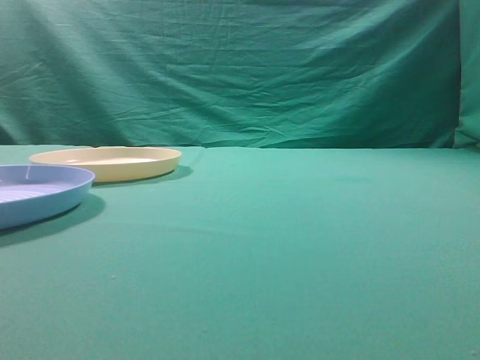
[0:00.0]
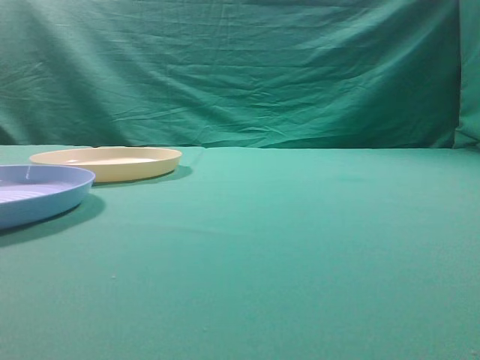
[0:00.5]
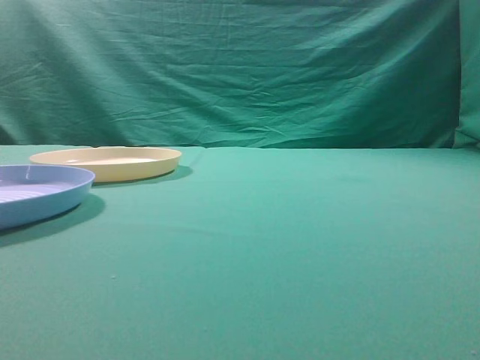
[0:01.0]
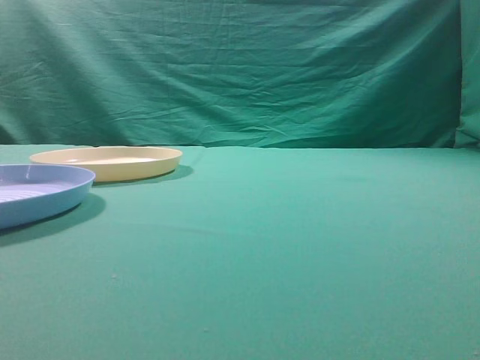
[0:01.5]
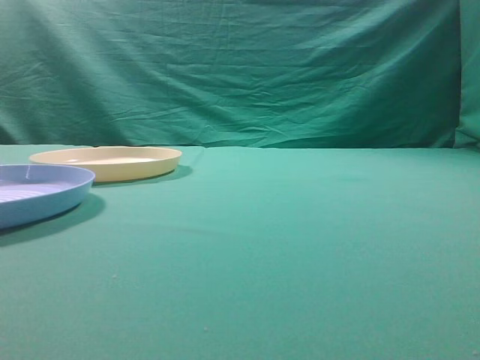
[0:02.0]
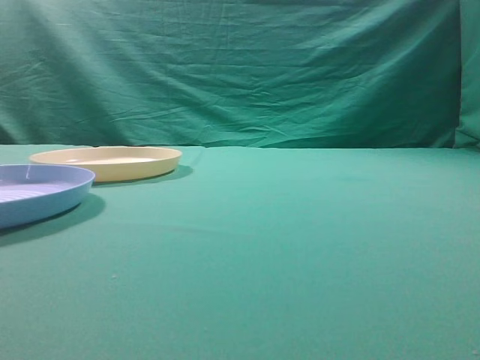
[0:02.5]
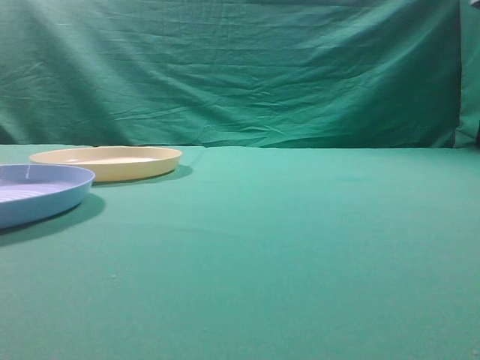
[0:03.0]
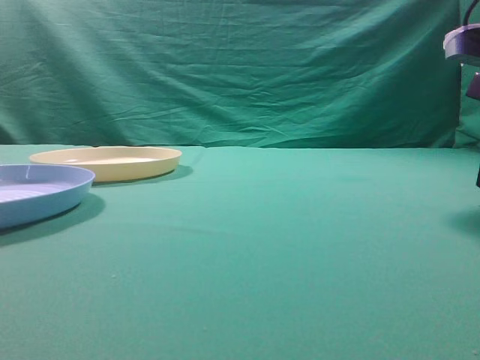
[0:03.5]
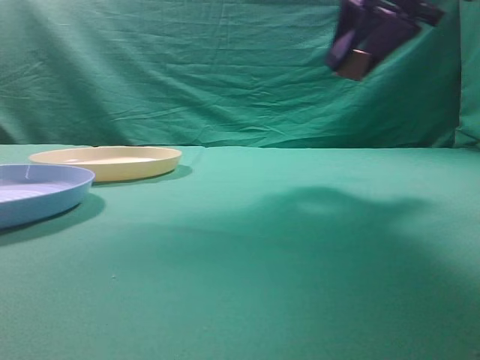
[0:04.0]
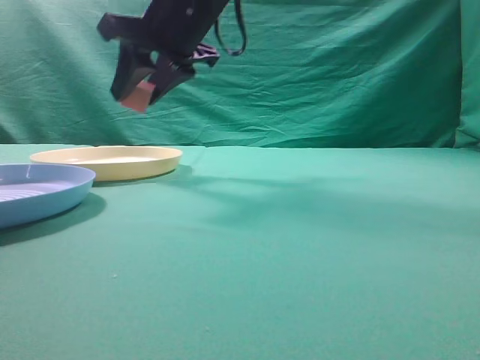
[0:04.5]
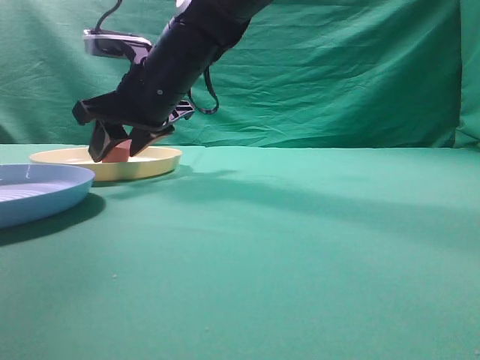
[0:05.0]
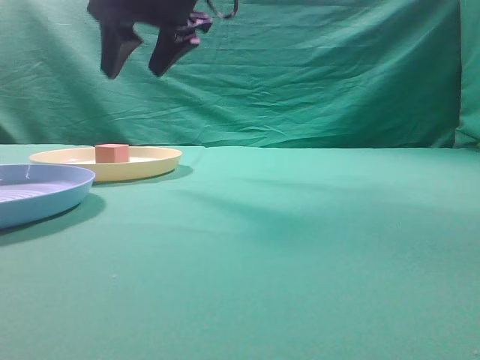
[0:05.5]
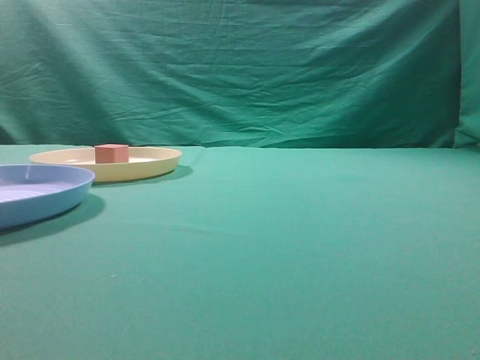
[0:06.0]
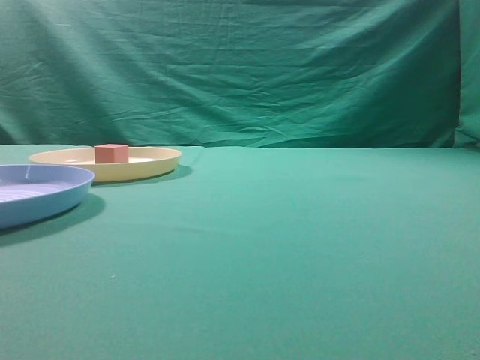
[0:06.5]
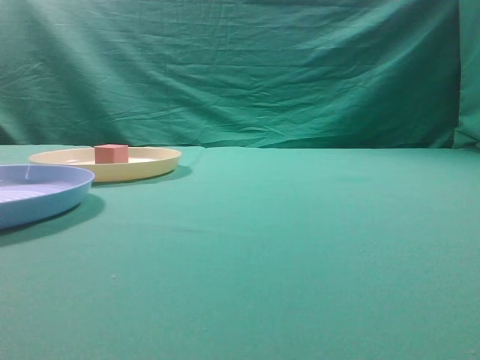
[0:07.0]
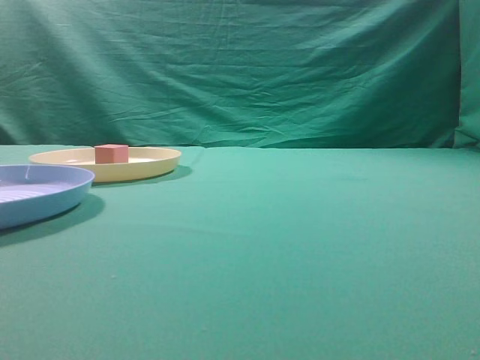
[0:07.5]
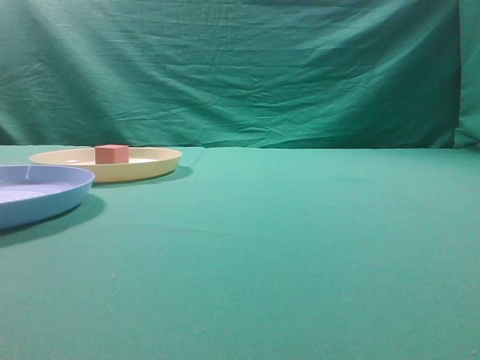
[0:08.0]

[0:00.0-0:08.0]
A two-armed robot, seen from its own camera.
Task of the whole recording: pick up the cube block from the table and put it on the plate.
Step, 0:00.0 to 0:03.5: Grasp the small cube on the table.
Step, 0:04.0 to 0:05.0: Place it into the yellow plate.
0:02.0 to 0:04.0: The right gripper shifts about 35 cm to the left and forward, and opens up.
0:04.0 to 0:06.0: The right gripper heads upward, backward and to the right, covering some 25 cm, and closes up.
